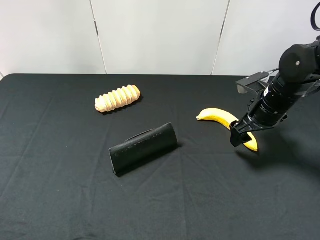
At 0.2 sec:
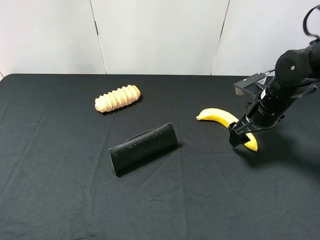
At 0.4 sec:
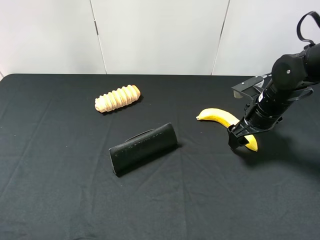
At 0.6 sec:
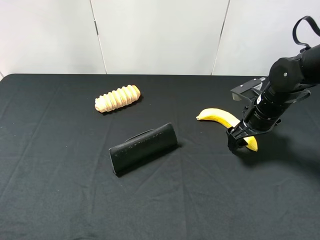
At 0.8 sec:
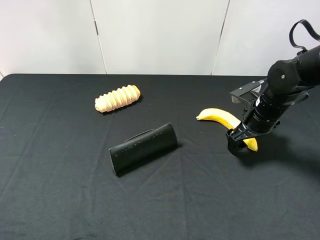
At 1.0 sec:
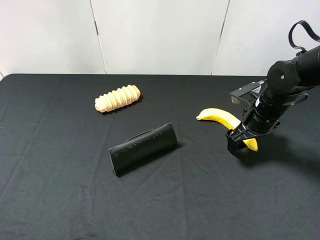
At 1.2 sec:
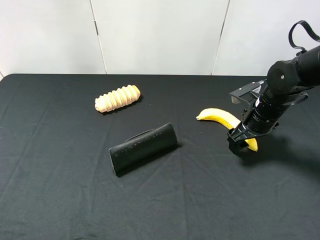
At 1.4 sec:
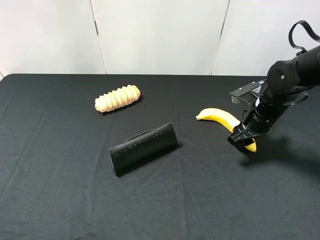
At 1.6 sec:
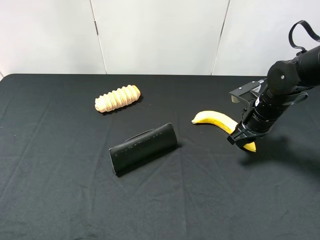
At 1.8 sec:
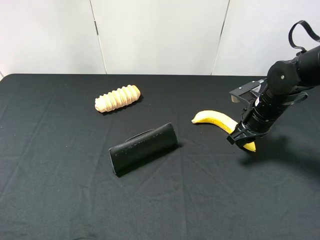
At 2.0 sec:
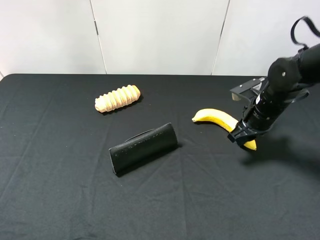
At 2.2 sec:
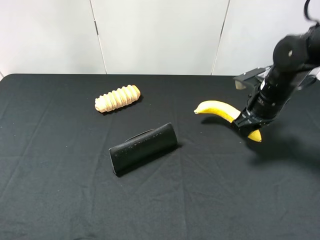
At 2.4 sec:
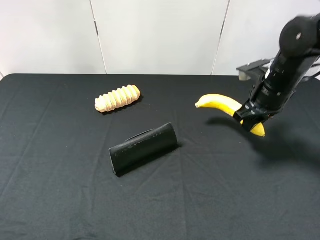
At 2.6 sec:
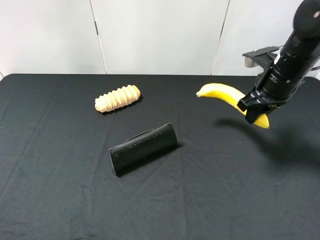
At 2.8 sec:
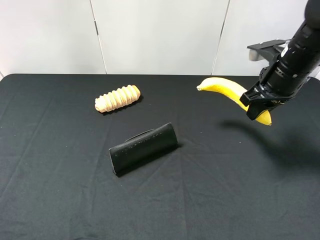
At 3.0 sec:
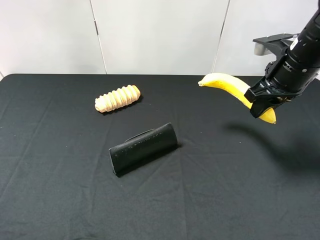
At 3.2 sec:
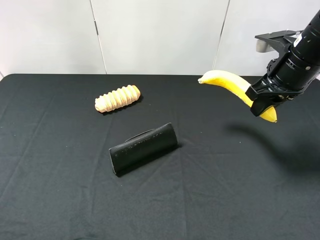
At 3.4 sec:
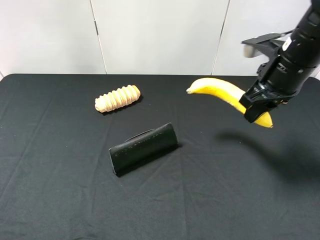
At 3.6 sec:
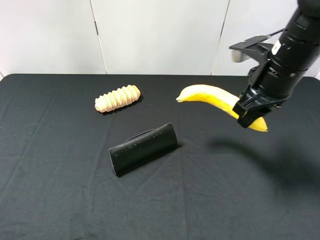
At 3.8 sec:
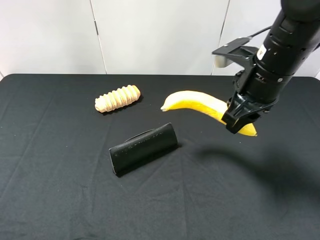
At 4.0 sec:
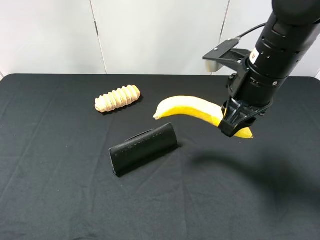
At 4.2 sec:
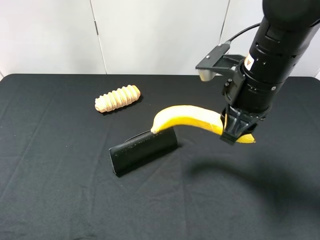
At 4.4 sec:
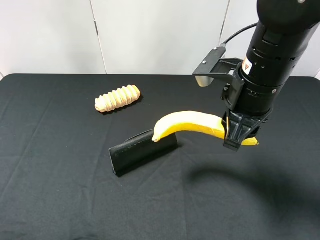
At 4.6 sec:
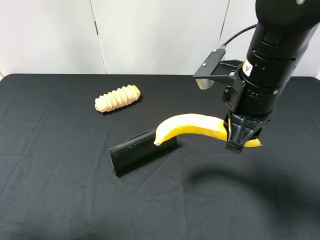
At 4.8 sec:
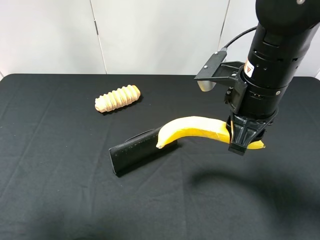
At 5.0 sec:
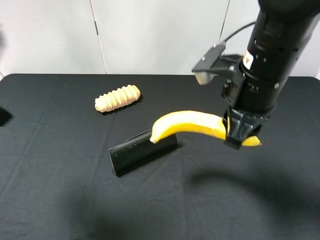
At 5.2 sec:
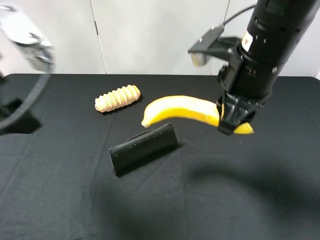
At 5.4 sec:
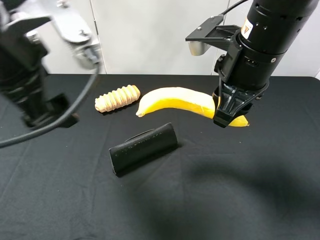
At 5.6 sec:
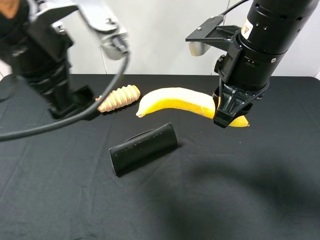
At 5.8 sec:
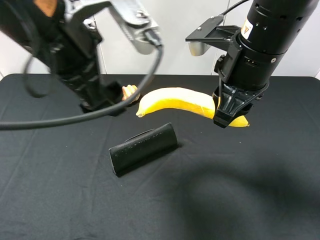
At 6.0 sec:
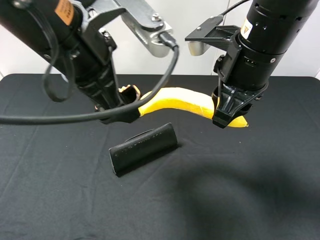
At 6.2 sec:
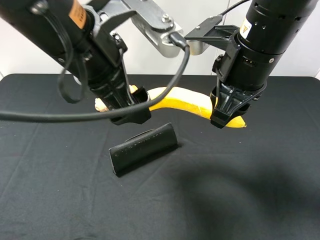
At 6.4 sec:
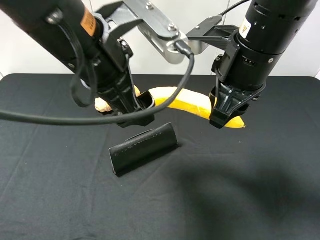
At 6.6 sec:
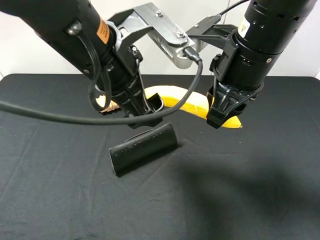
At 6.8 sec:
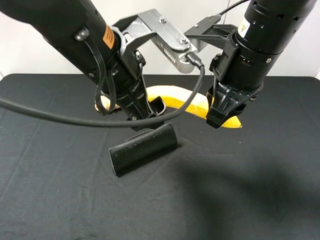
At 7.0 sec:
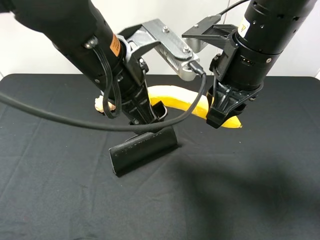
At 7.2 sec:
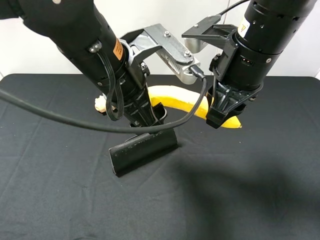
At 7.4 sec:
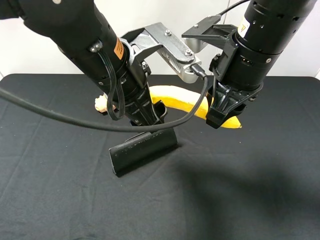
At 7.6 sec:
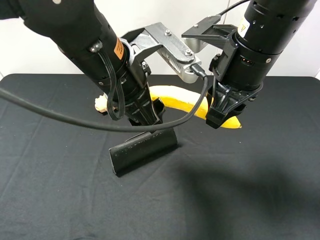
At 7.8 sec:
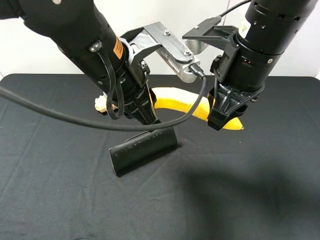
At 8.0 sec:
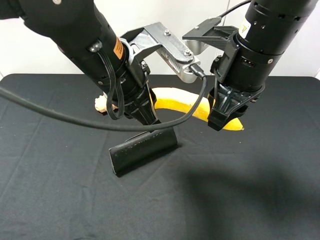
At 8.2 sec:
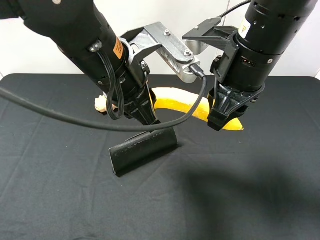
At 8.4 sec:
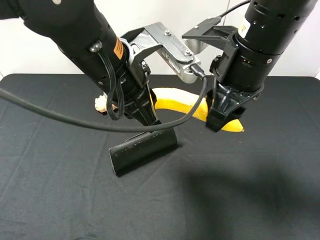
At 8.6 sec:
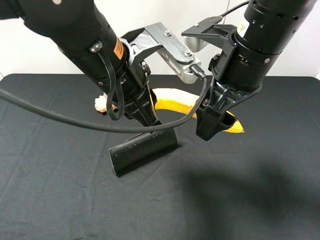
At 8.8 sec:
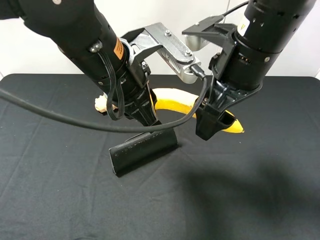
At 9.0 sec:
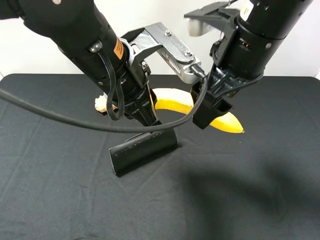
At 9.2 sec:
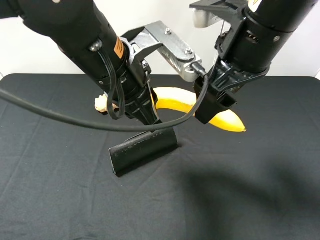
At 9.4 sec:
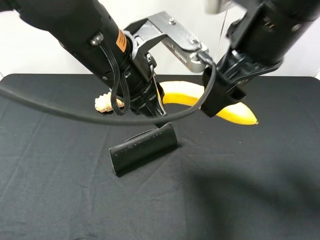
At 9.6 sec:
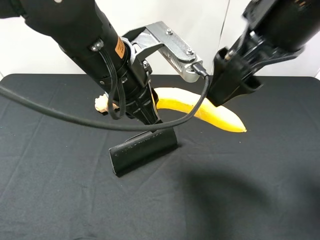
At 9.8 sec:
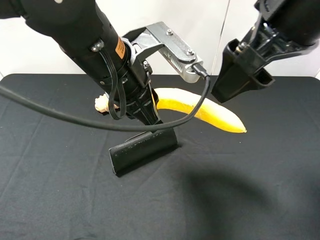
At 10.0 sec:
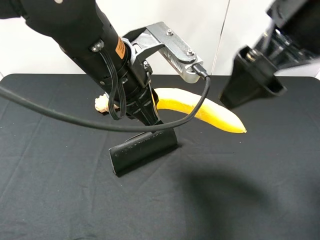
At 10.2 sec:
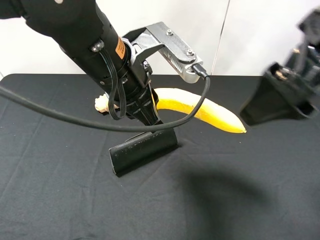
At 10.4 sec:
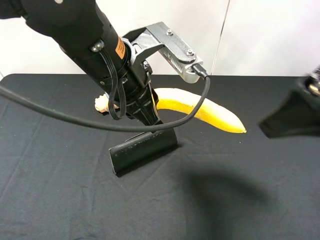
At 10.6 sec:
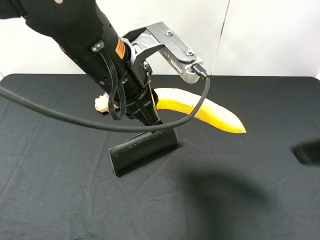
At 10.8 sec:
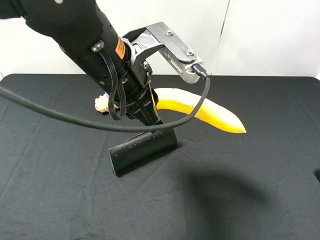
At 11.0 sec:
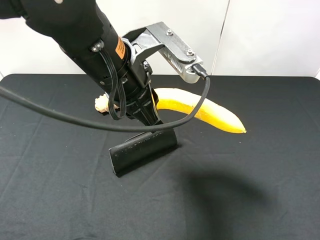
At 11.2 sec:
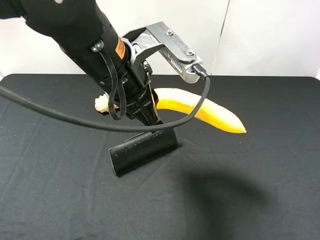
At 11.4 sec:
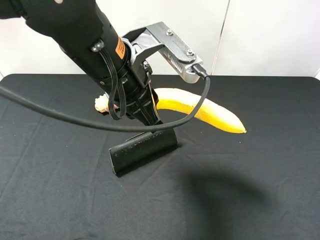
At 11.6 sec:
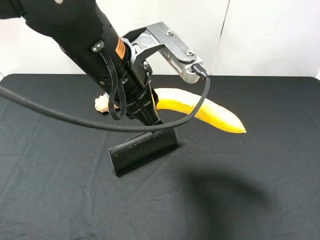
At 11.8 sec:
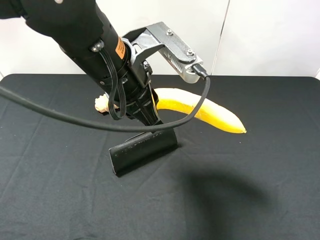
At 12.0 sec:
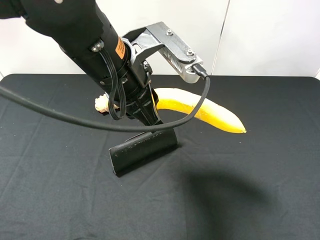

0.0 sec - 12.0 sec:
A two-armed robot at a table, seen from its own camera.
Task of the whole recording: use the right gripper to pick up the item and transfer it from the right gripper to the left gripper.
Step, 2.0 sec - 9.4 sec: Pass the banana to the left gripper.
0.0 sec - 1.6 sec: The right gripper closes up.
1.6 sec - 3.0 sec: The right gripper moves upward, approximately 15 cm.
3.0 sec - 4.4 sec: The left gripper goes approximately 5 cm forward, while the right gripper moves to the left and backward, approximately 15 cm.
4.4 sec - 6.0 sec: The left gripper shifts roughly 25 cm to the right and forward.
6.0 sec - 7.6 sec: The left gripper shifts by roughly 5 cm, and closes.
7.6 sec - 9.0 sec: The left gripper closes; the right gripper opens its fingers.
9.0 sec - 10.4 sec: The right gripper shifts some 15 cm backward and to the right.
10.4 sec - 12.0 sec: The right gripper is displaced backward, to the right and downward by roughly 15 cm.

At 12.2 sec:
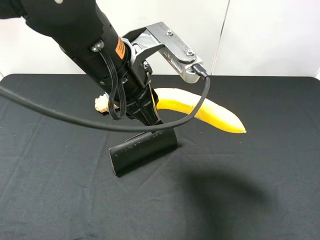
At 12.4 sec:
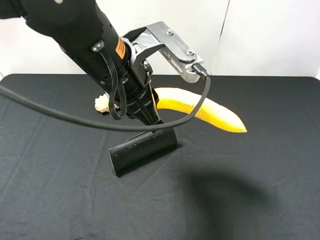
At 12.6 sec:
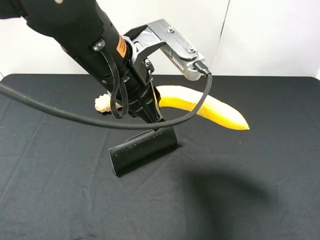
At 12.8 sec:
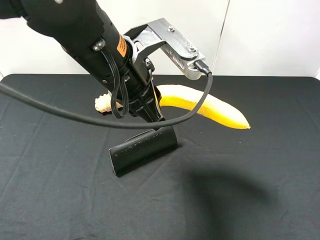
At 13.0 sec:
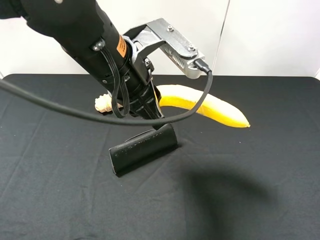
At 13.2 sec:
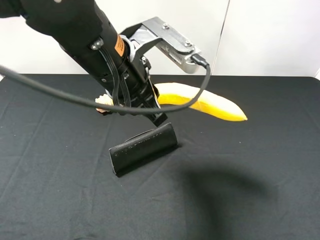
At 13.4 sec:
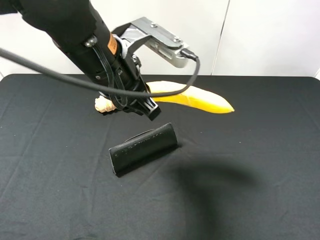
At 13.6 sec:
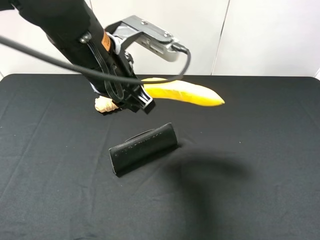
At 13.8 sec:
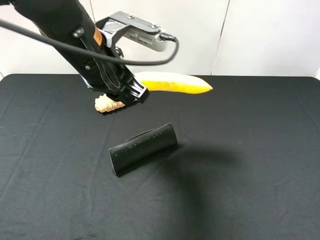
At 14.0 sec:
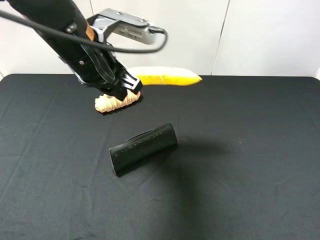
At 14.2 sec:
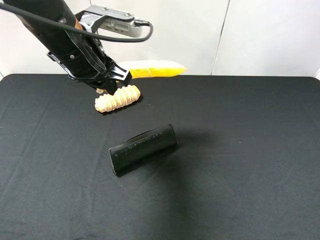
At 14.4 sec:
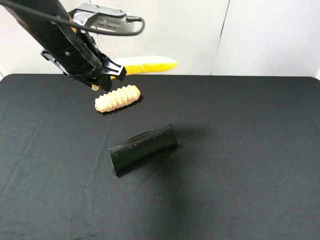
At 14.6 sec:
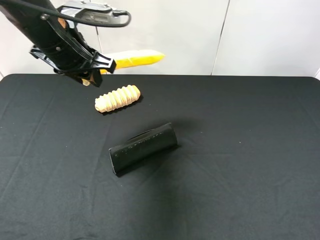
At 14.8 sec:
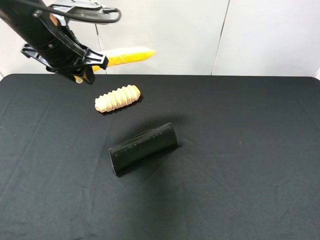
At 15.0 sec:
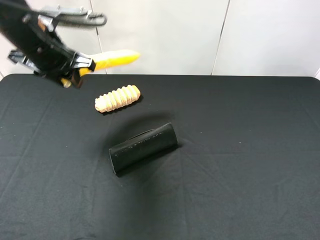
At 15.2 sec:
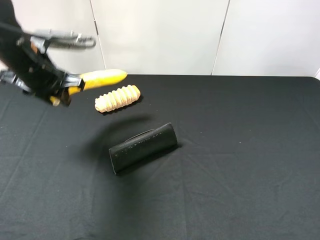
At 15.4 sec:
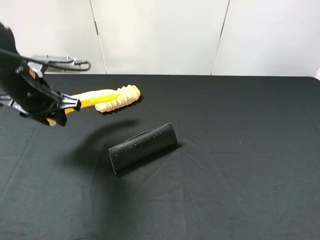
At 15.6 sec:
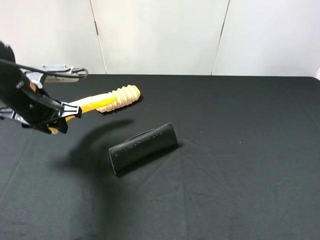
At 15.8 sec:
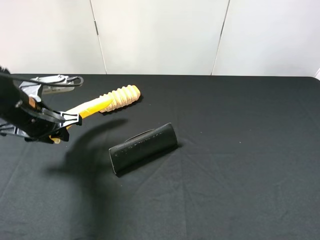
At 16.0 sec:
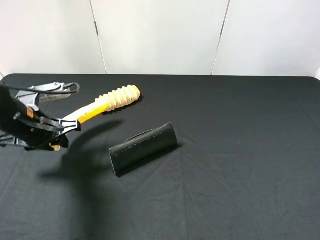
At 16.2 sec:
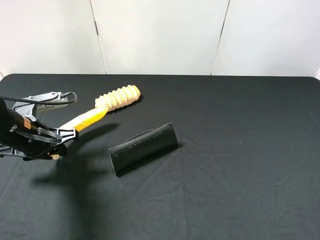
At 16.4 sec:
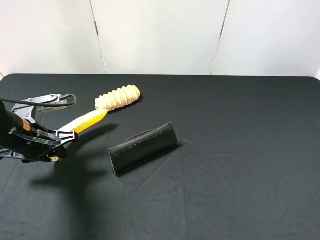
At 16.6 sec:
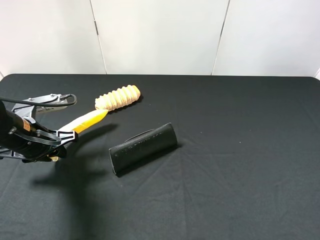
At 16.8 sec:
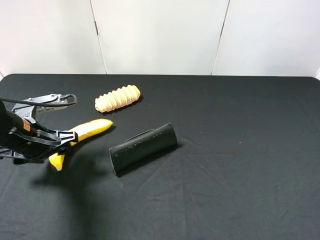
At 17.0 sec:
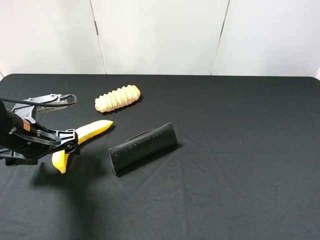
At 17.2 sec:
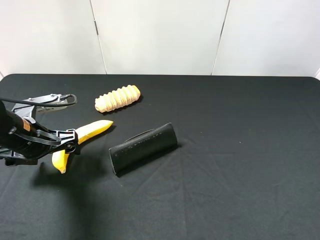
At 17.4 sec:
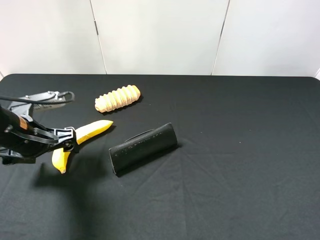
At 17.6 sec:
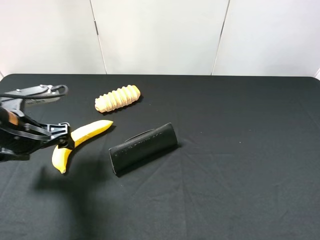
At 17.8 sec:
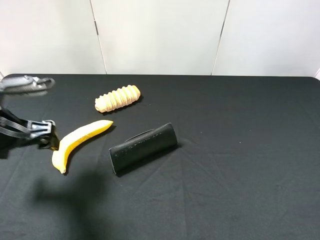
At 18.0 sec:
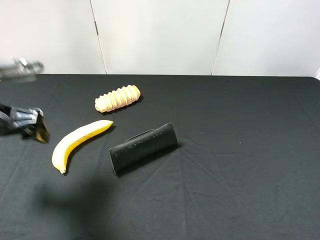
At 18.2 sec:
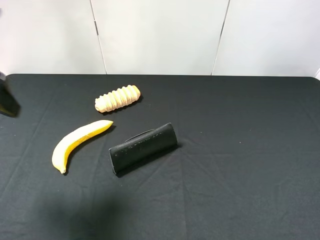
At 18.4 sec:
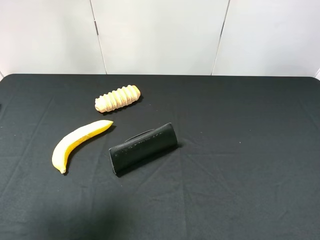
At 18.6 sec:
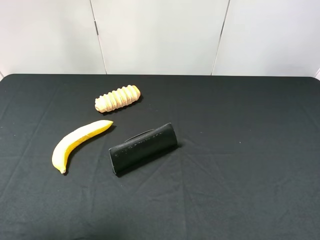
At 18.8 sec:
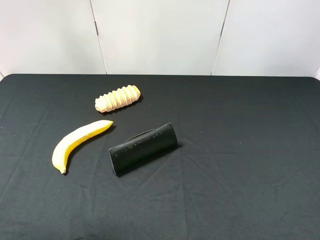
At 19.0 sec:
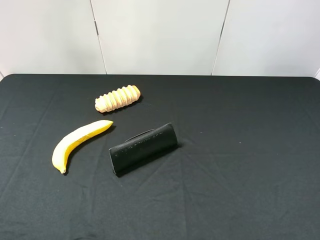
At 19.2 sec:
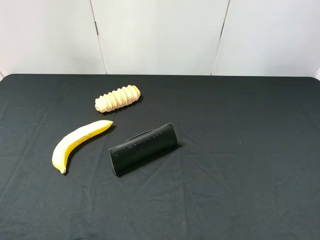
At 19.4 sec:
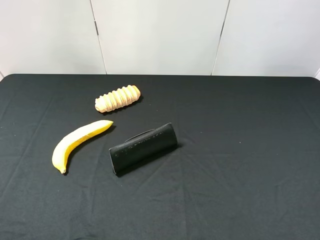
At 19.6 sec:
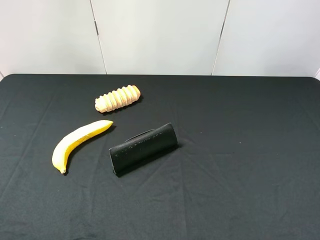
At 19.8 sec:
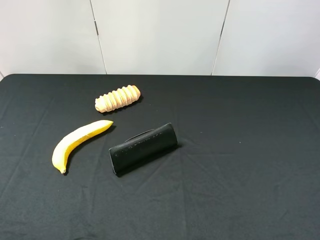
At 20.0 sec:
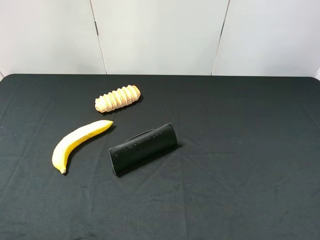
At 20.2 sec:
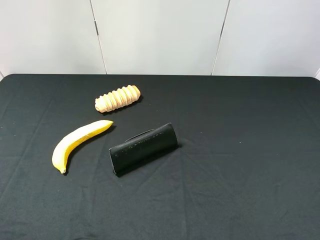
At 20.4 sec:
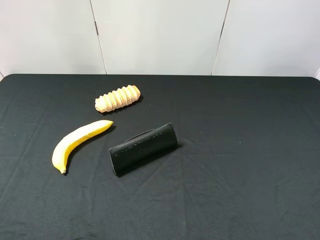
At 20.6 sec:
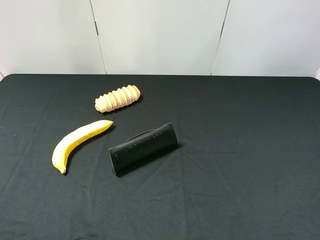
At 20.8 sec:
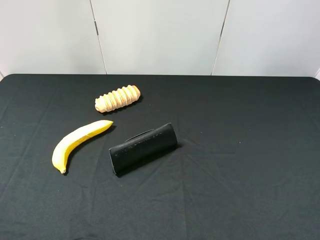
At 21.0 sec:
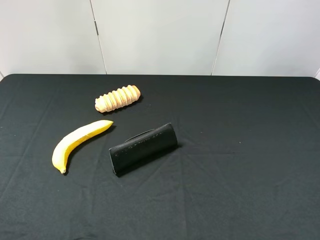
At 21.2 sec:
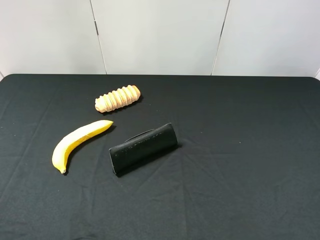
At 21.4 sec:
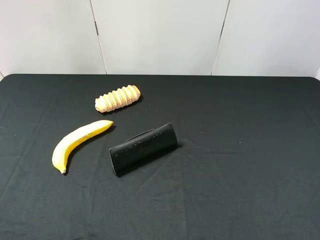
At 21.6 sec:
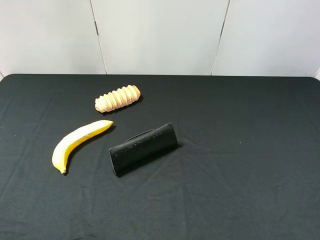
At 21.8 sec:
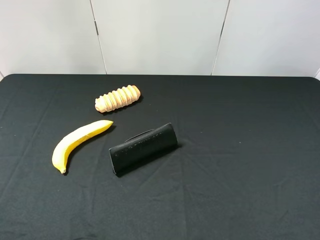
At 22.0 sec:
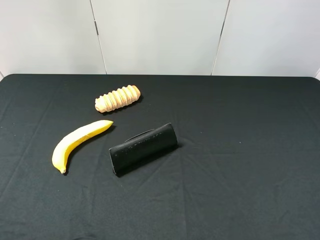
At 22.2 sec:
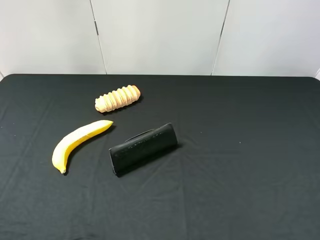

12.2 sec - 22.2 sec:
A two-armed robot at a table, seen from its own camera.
Task of the whole recording: use the right gripper to pick up the item and transfer it from the right gripper to the left gripper.
Step, 12.2 sec - 17.4 sec: The left gripper places banana on the left side of the table.
13.6 sec - 15.0 sec: The left gripper heads to the left and forward, covering roughly 15 cm.
15.0 sec - 16.4 sec: The left gripper travels downward and backward by some 15 cm.
16.4 sec - 18.0 sec: The left gripper goes about 15 cm upward, and opens its fingers.
18.0 sec - 19.4 sec: The left gripper shifts approximately 20 cm backward.
